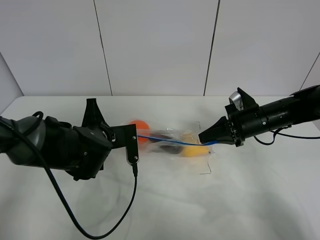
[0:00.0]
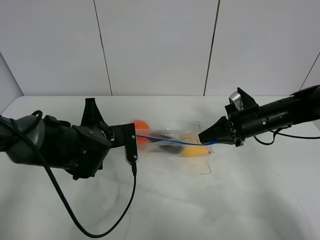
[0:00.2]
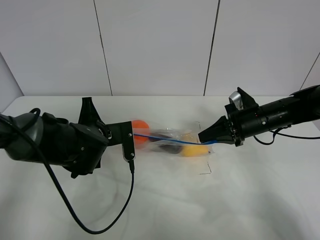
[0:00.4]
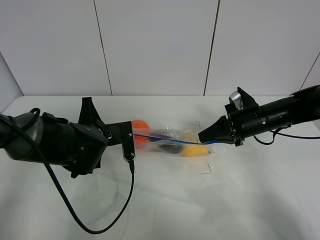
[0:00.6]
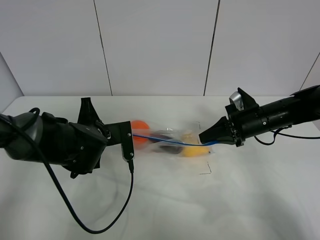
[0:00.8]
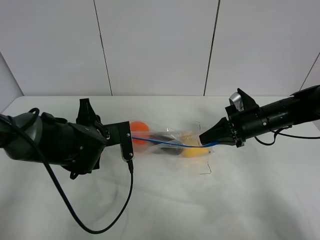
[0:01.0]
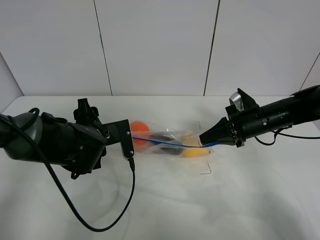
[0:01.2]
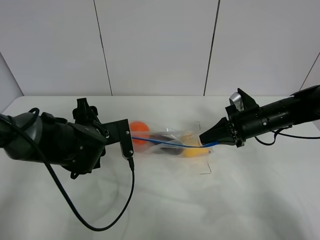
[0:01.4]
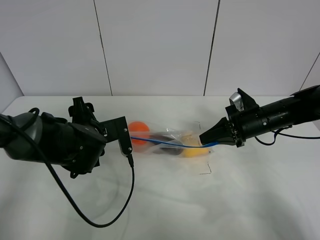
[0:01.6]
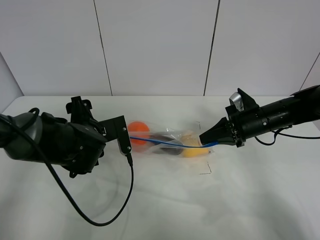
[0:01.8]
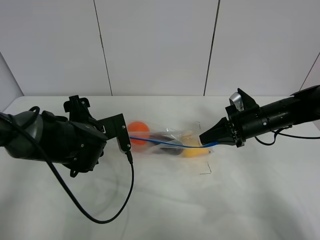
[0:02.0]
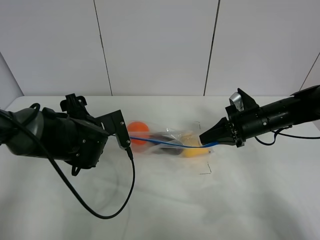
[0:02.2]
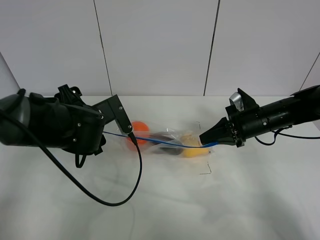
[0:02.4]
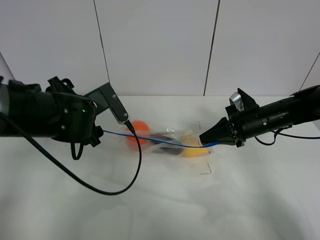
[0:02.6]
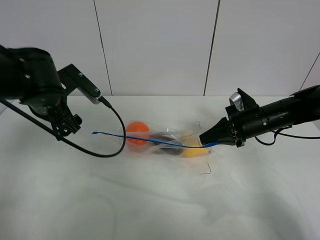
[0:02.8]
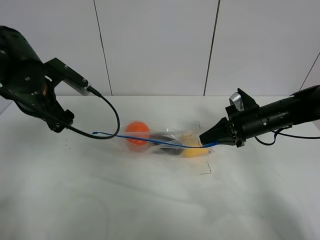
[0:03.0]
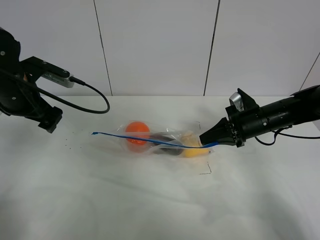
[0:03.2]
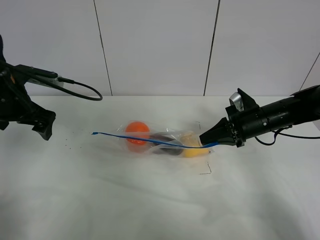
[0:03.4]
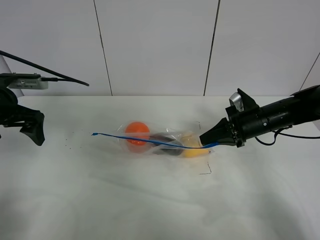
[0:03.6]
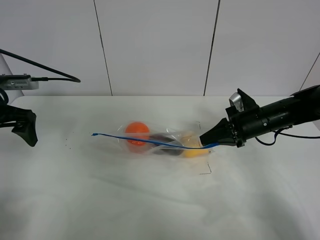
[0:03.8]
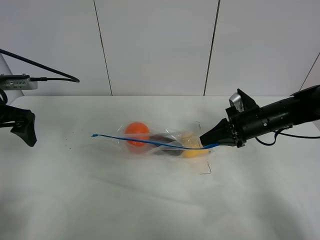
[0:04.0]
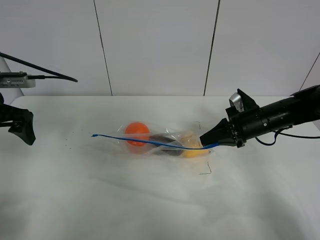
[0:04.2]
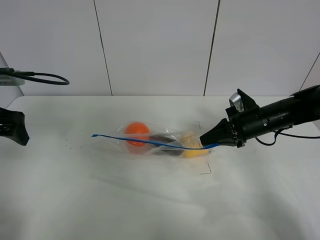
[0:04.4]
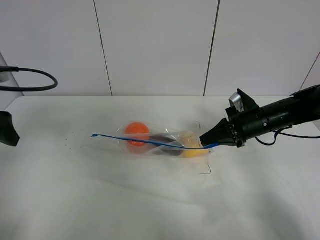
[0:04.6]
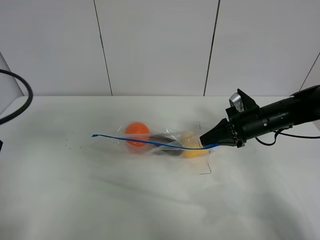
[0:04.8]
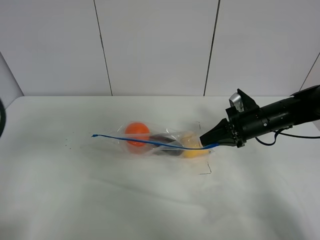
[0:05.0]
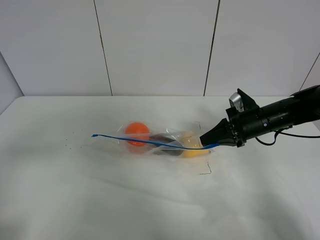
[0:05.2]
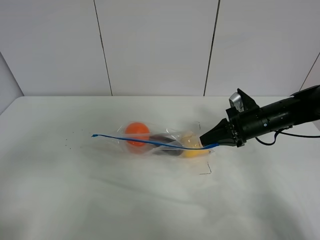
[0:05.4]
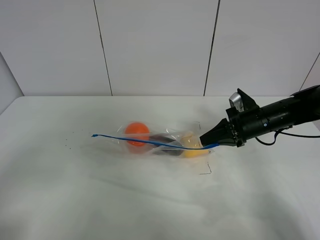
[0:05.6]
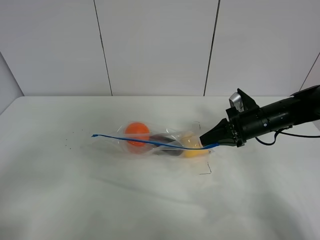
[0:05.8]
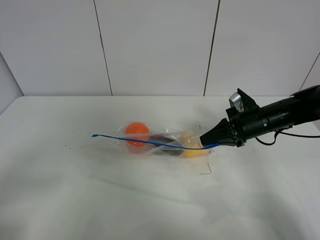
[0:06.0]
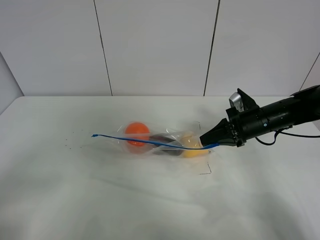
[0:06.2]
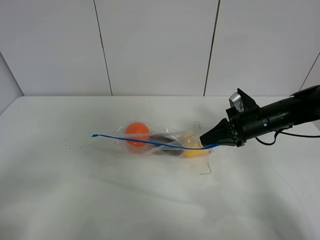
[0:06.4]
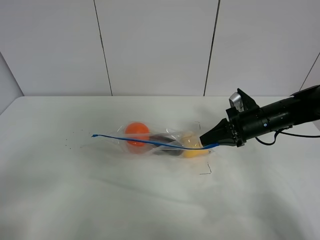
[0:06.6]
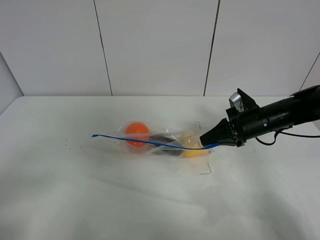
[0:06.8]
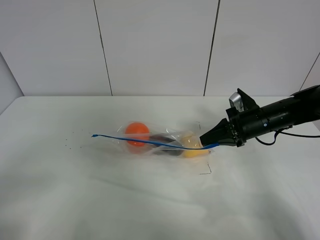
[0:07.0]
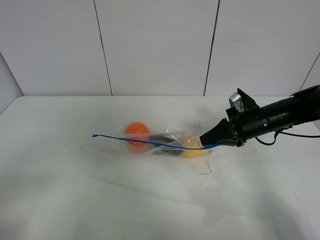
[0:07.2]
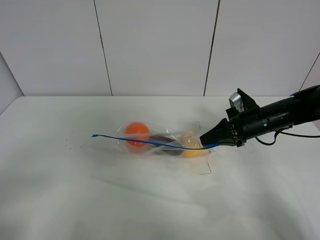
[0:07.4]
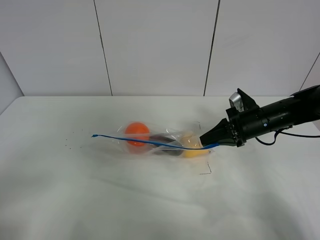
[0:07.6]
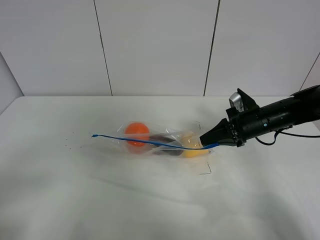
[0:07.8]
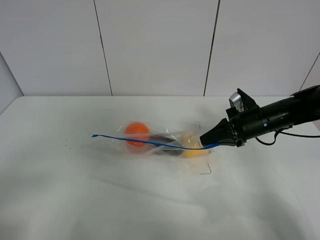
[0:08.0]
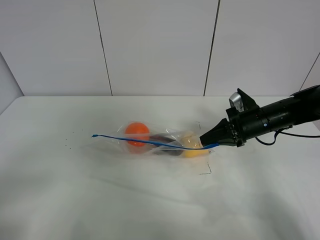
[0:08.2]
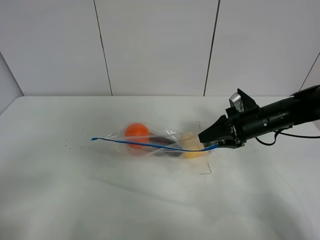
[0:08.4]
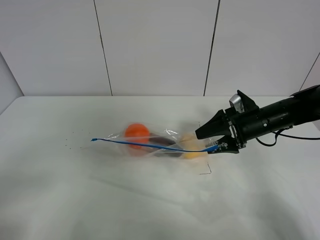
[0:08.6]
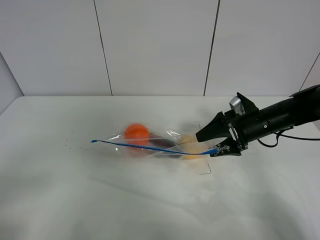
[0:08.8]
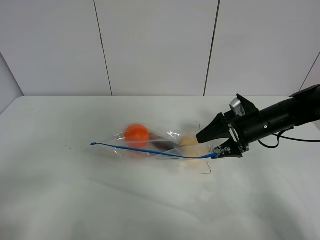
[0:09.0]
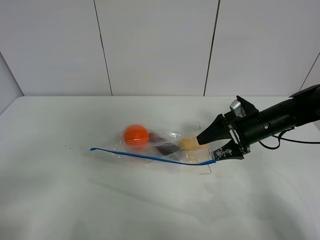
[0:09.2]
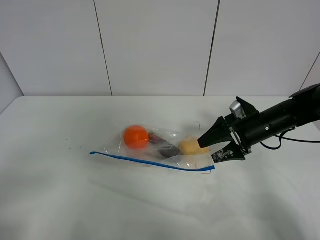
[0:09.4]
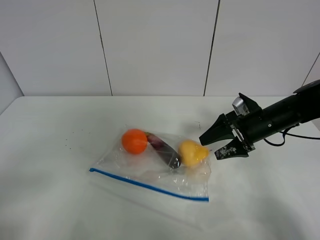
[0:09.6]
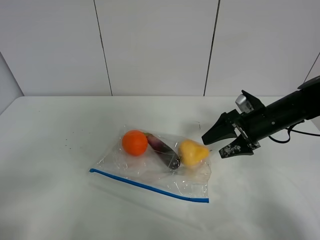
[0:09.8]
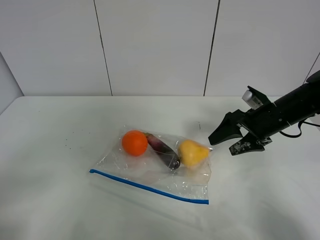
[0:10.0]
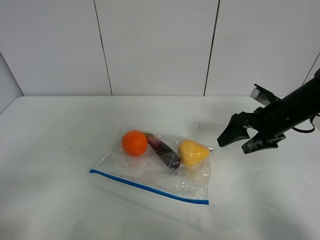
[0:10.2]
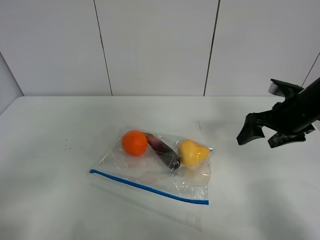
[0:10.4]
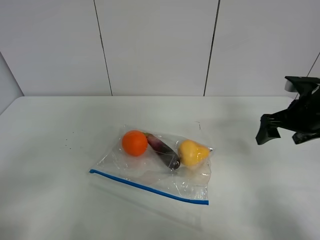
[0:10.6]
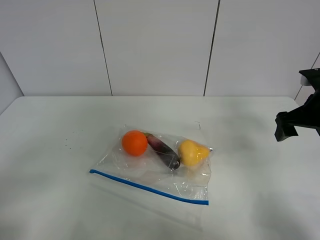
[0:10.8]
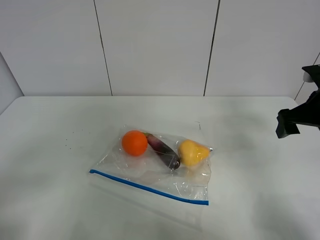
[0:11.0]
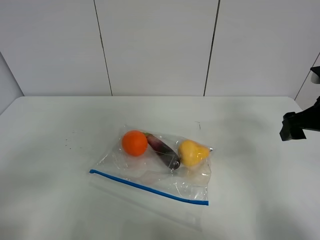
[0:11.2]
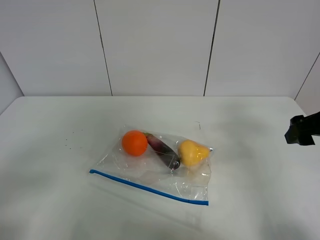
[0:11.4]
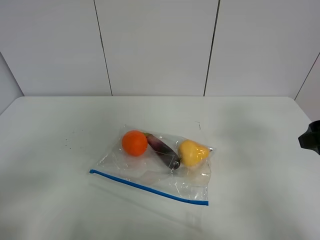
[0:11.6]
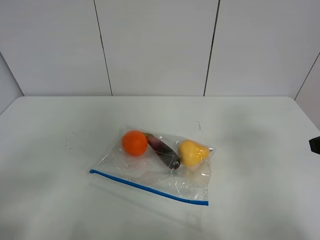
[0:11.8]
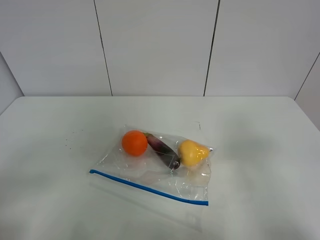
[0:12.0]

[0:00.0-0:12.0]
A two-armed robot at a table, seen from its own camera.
0:00.0 to 0:01.6: The left gripper opens up.
0:01.6 to 0:03.0: The left gripper travels upward and to the left by about 15 cm.
0:03.0 to 0:04.4: The left gripper travels to the left and backward by some 10 cm.
0:04.4 to 0:06.0: The left gripper heads backward, covering about 25 cm.
0:07.6 to 0:09.0: The right gripper opens.
0:09.0 to 0:10.4: The right gripper shifts approximately 10 cm upward and to the right.
0:10.4 to 0:12.0: The right gripper travels backward by some 20 cm.

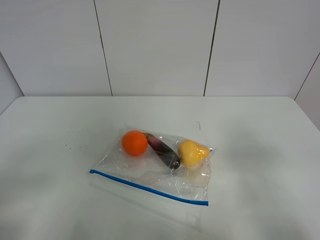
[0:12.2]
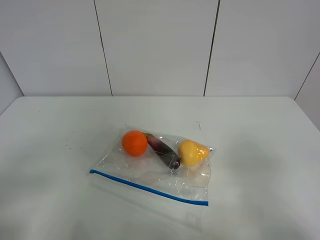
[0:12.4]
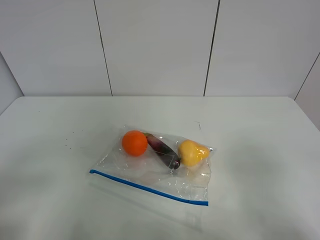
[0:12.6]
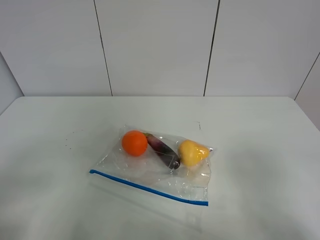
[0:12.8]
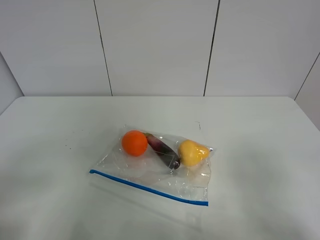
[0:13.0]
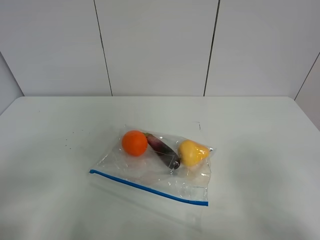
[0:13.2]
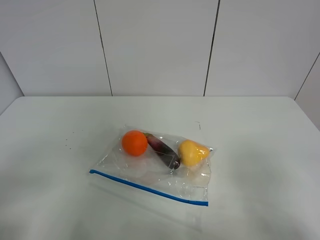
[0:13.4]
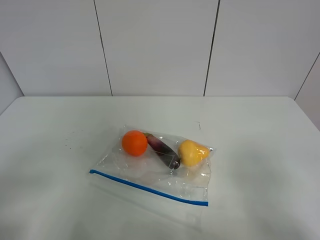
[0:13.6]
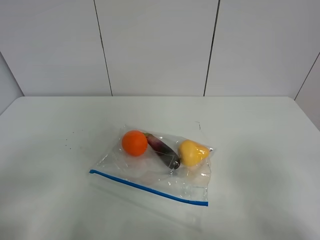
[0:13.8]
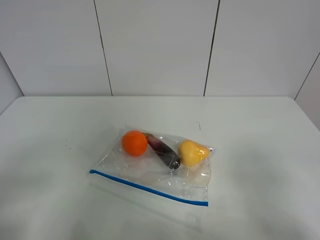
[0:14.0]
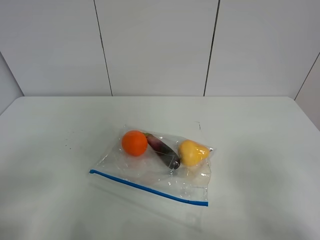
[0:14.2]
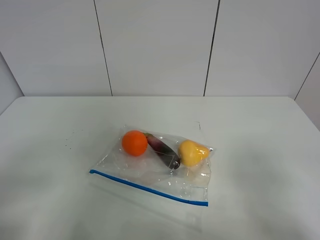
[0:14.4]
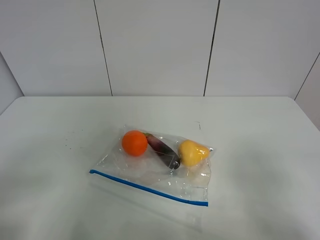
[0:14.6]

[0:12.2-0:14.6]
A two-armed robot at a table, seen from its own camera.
0:13.4 to 0:14.6: Neither gripper changes place.
